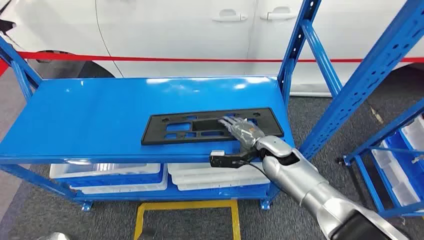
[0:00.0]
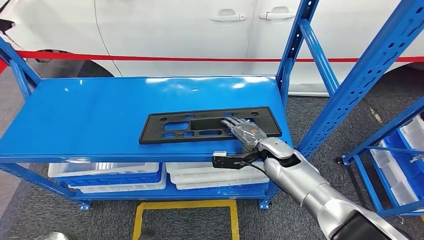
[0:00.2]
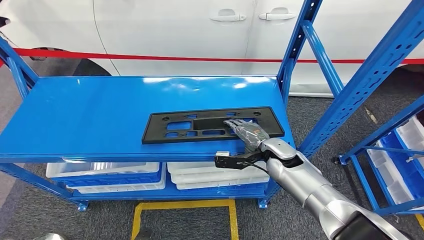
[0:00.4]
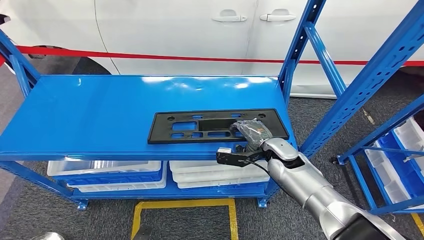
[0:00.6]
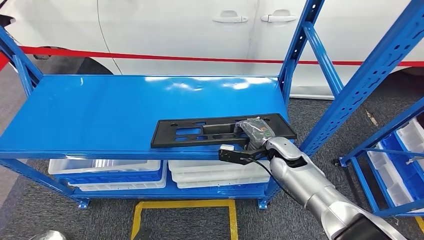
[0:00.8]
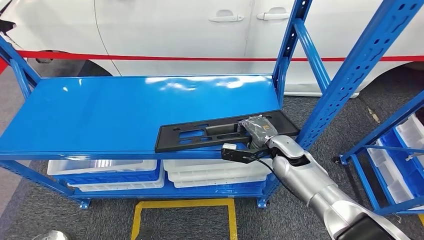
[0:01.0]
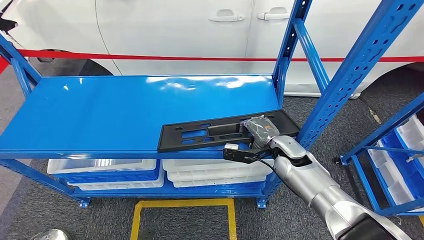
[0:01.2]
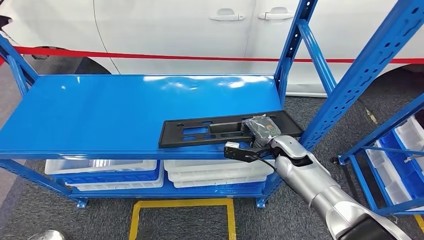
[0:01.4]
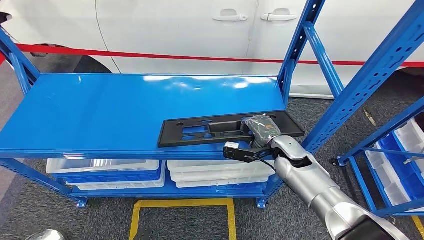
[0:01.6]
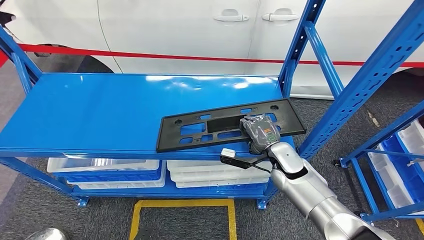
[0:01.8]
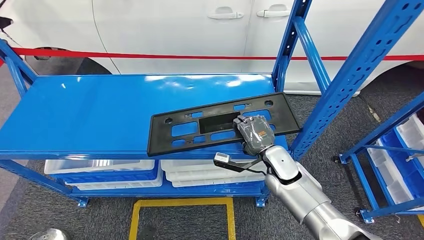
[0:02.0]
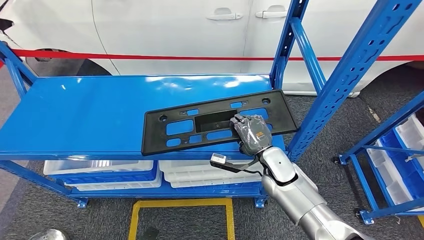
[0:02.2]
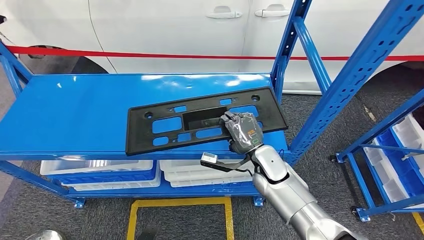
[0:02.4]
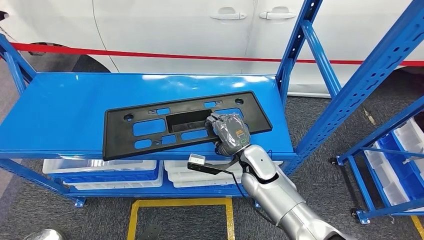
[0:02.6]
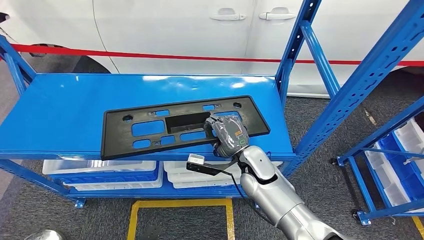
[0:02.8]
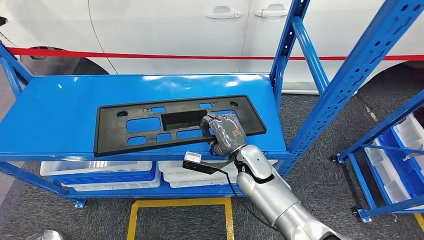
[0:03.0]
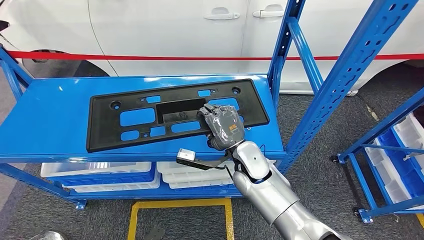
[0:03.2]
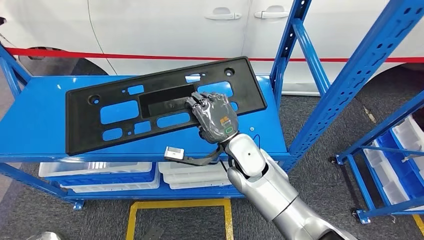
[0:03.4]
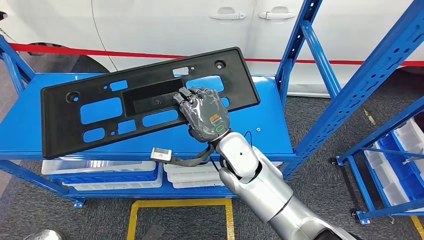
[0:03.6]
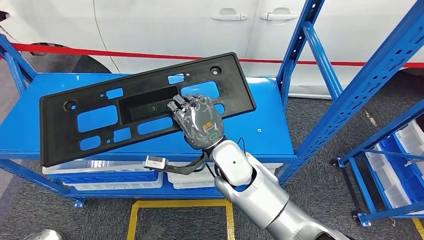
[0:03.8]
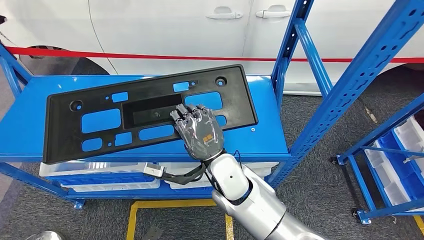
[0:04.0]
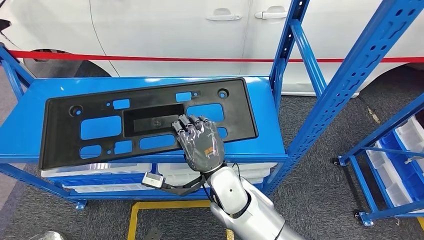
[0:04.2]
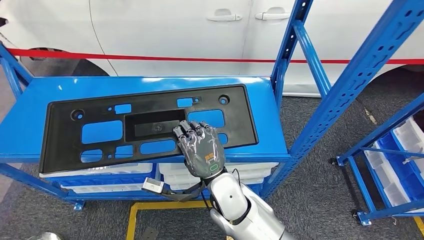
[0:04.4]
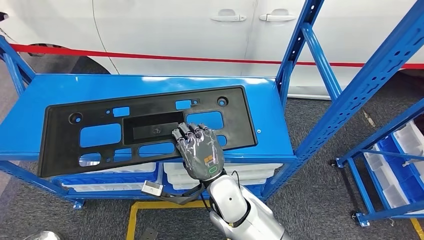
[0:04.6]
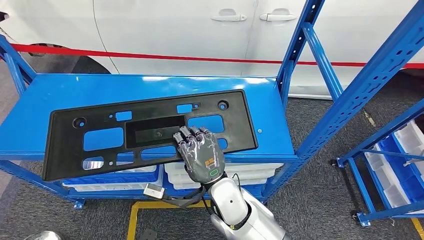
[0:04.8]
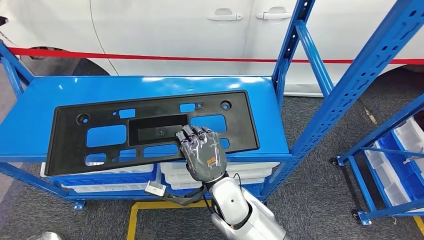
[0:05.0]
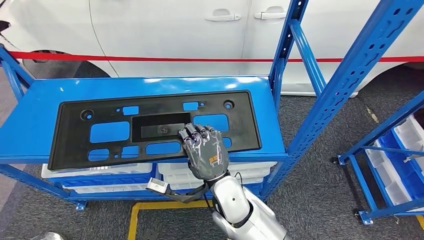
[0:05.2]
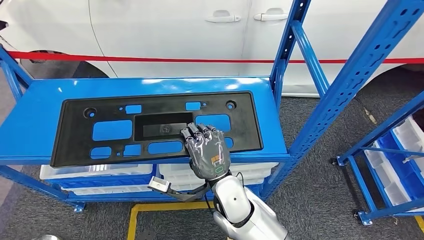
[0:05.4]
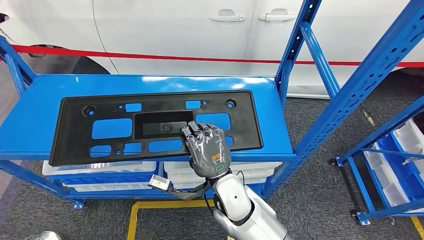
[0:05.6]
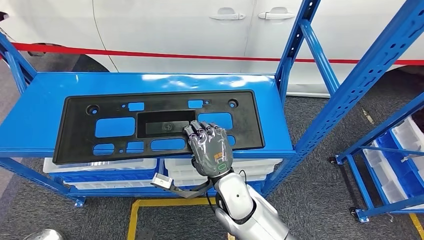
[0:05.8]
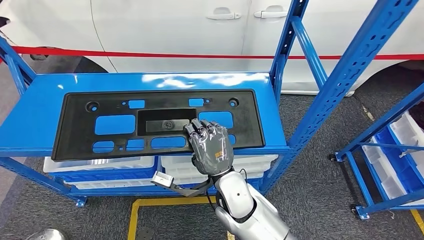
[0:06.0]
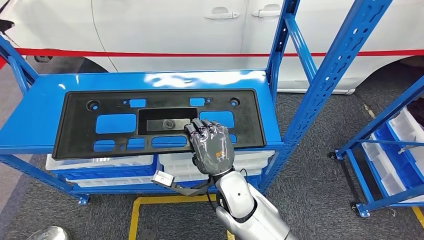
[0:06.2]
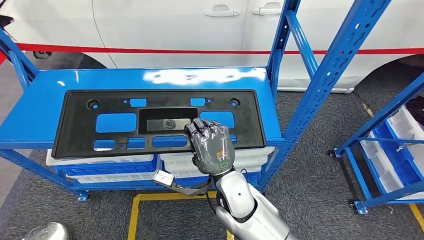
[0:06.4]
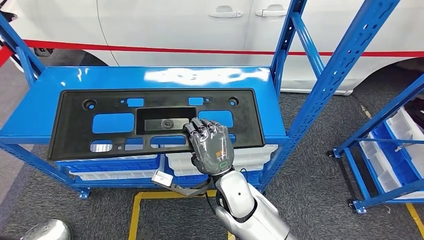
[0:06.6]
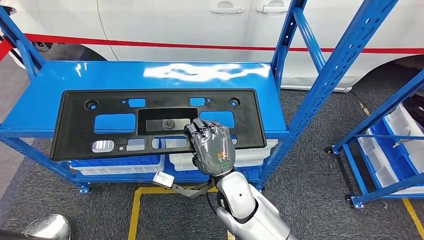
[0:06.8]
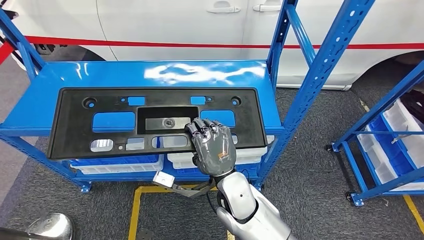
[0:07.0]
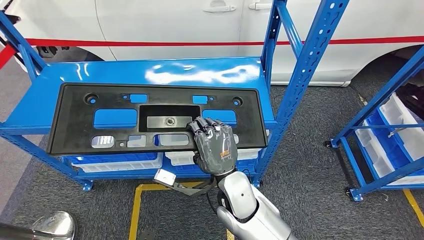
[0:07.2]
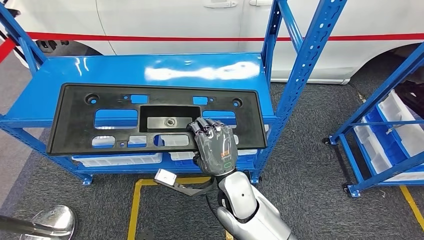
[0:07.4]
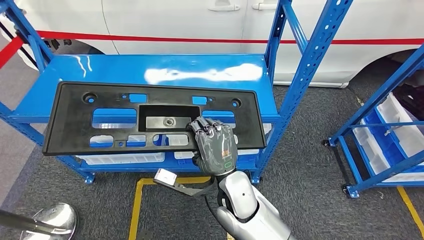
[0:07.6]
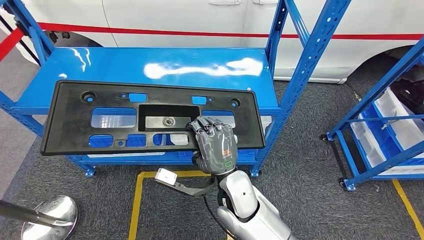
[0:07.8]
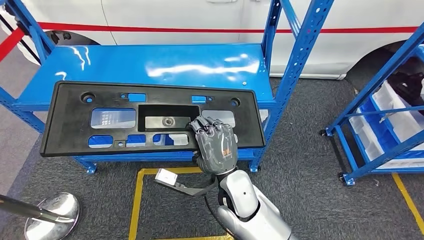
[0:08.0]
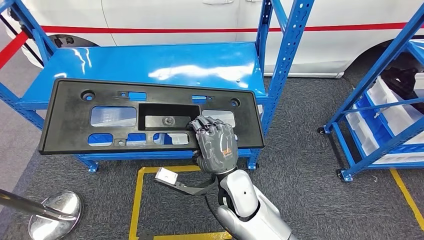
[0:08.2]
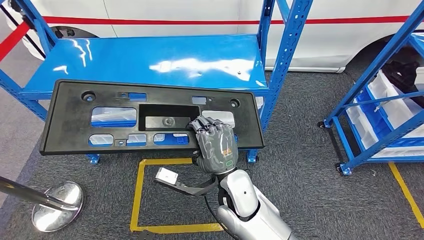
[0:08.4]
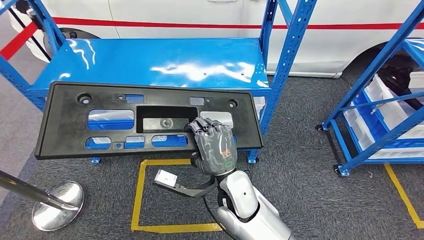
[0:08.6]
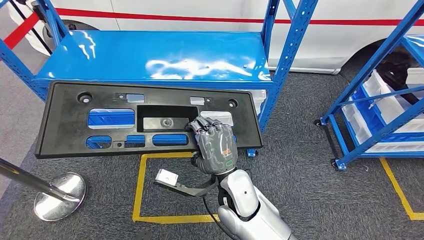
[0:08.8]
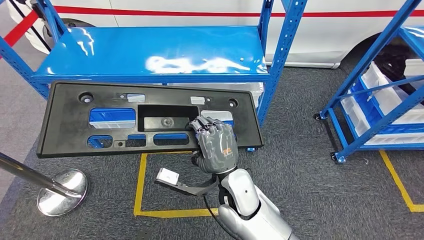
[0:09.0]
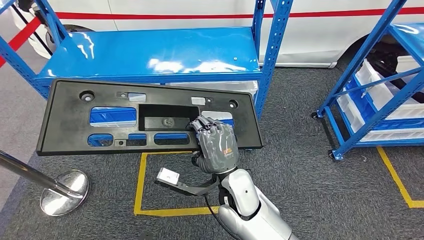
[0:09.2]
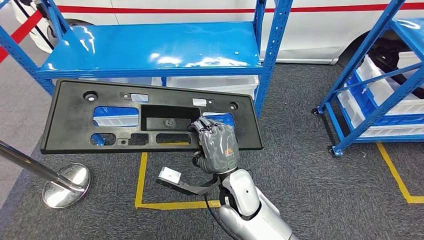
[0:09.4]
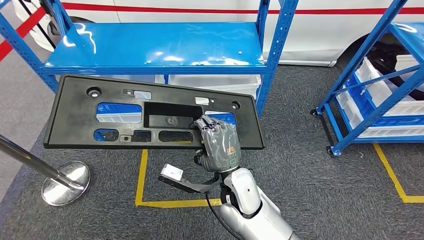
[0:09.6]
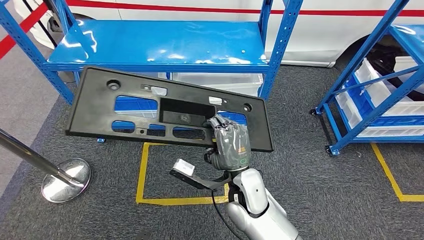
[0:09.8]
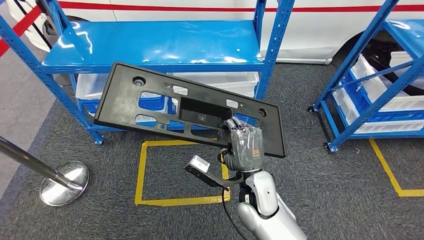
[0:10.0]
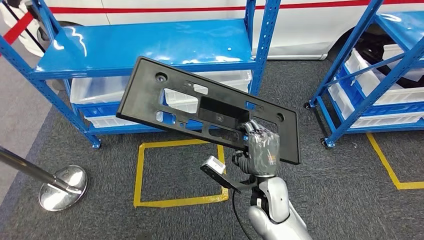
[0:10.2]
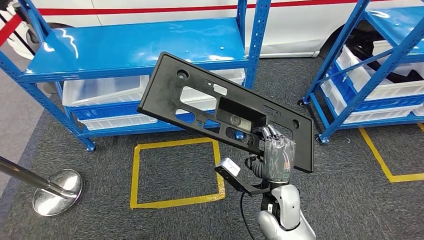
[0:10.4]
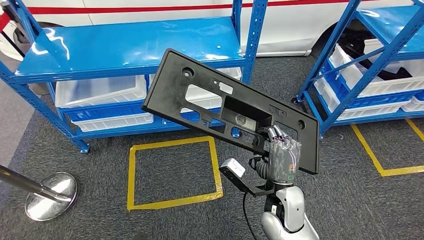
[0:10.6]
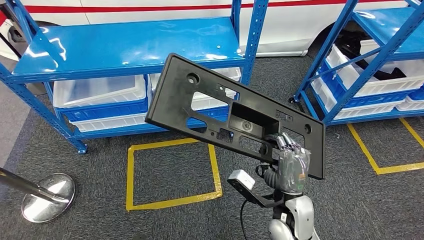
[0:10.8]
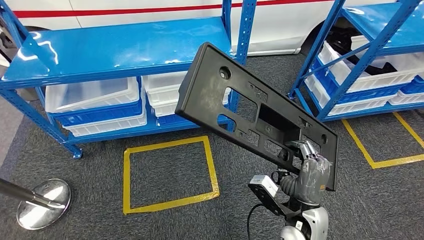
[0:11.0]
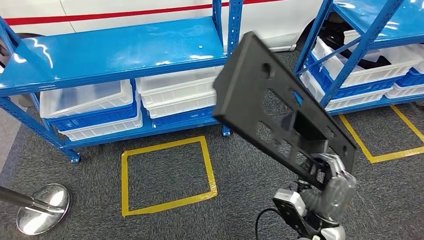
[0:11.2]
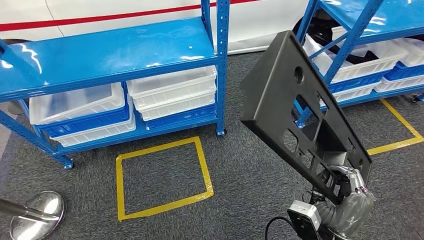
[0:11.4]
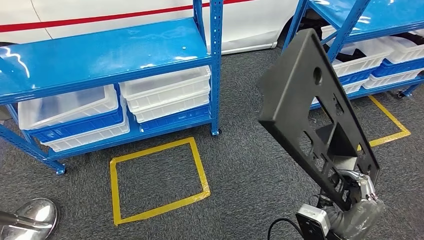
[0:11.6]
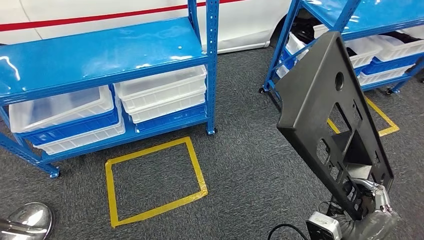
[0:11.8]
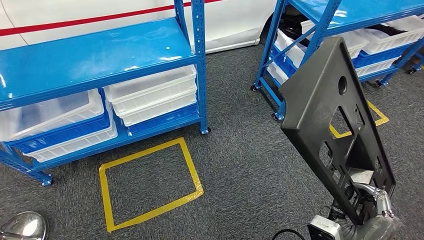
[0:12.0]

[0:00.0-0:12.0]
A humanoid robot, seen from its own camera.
Step, 0:00.0 to 0:05.6: Pick up the large material from the shelf.

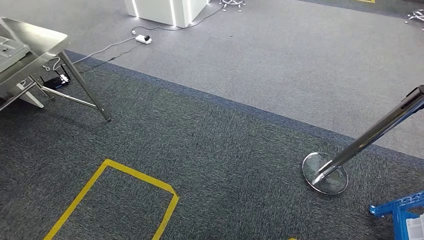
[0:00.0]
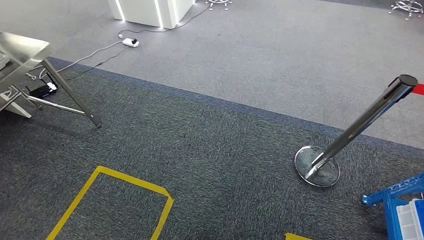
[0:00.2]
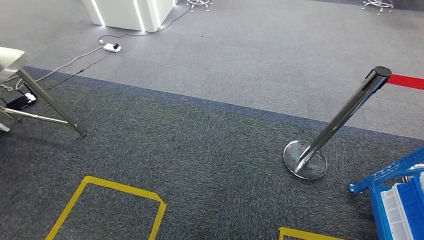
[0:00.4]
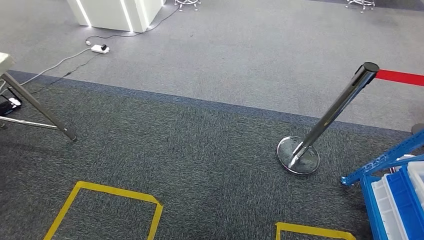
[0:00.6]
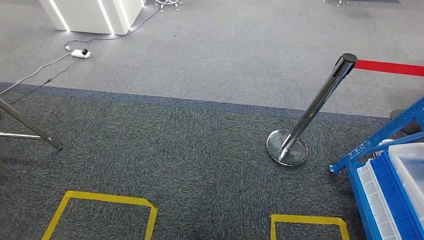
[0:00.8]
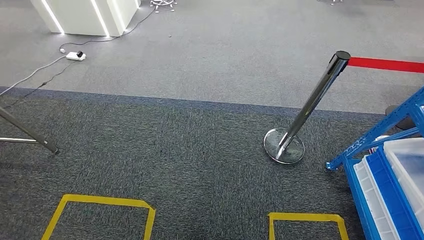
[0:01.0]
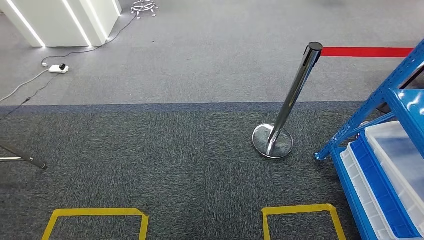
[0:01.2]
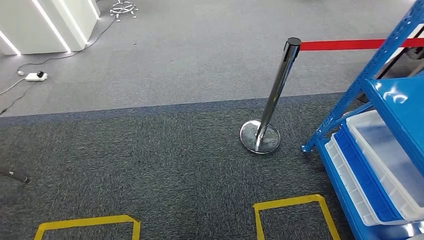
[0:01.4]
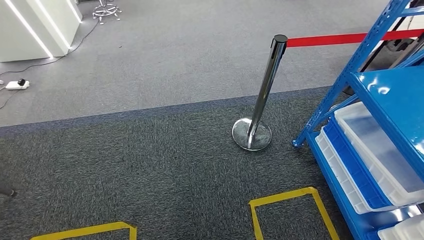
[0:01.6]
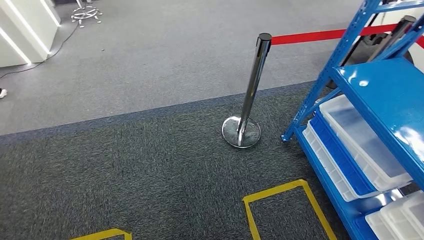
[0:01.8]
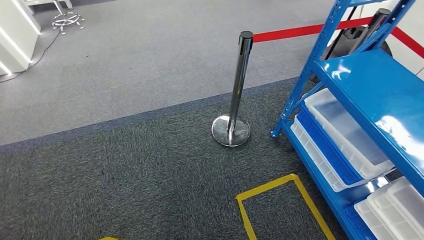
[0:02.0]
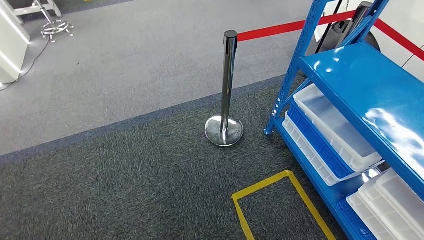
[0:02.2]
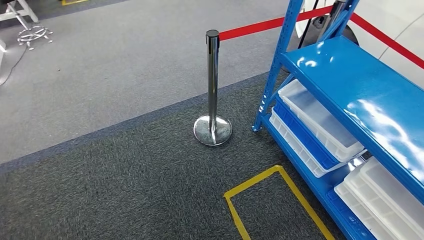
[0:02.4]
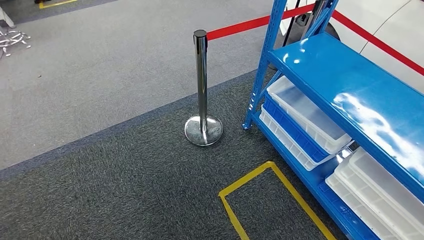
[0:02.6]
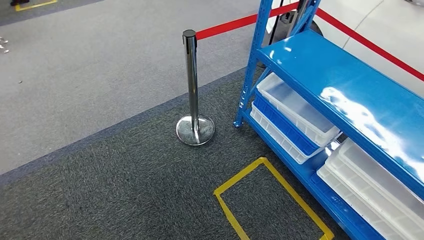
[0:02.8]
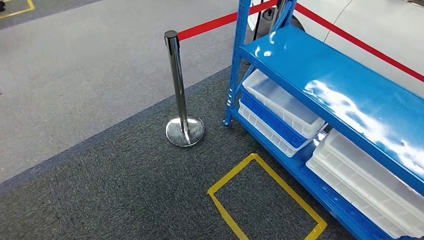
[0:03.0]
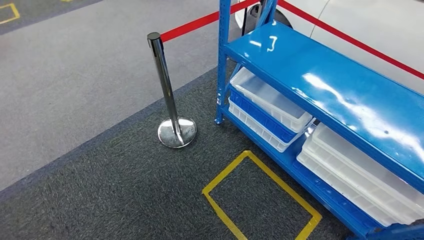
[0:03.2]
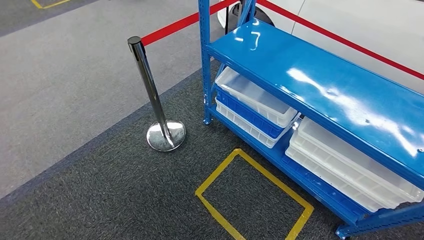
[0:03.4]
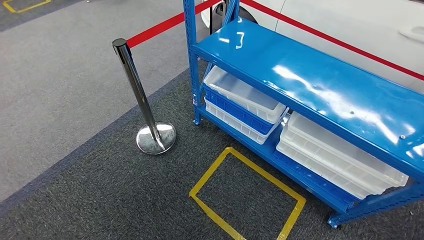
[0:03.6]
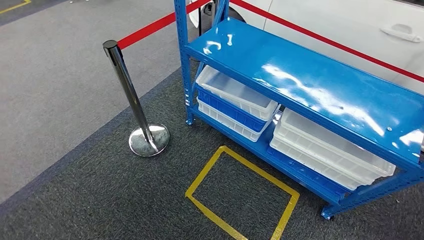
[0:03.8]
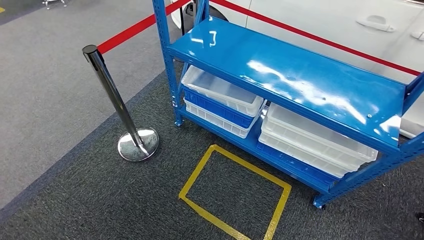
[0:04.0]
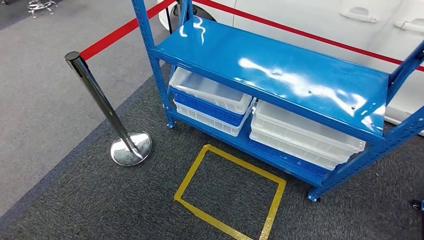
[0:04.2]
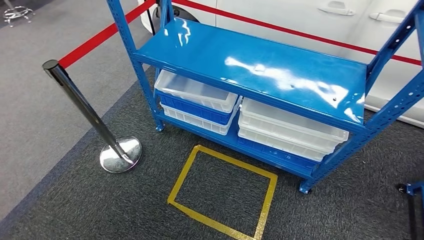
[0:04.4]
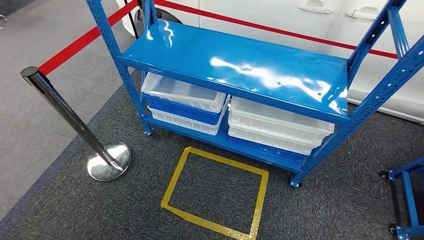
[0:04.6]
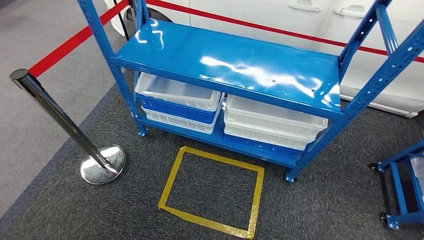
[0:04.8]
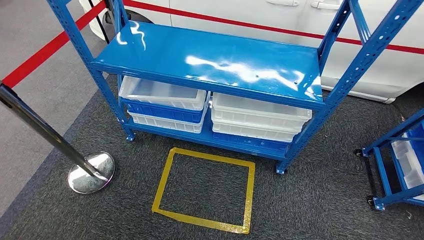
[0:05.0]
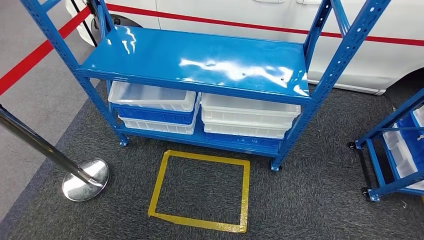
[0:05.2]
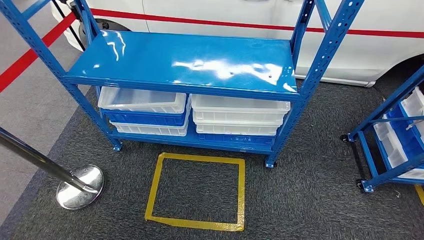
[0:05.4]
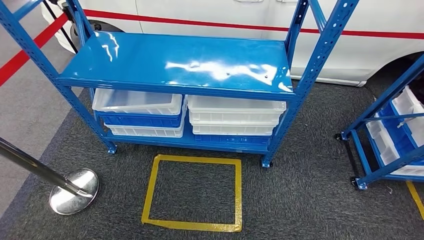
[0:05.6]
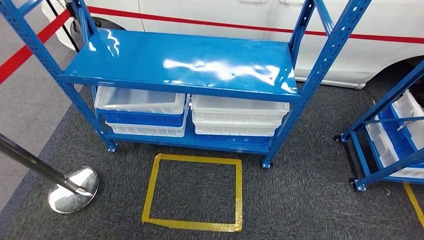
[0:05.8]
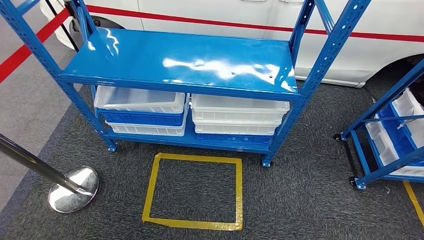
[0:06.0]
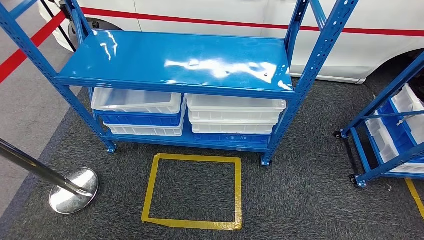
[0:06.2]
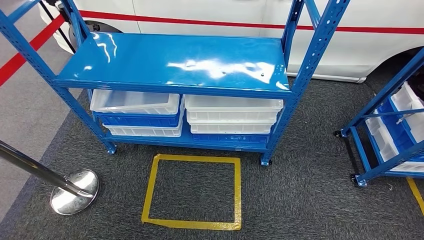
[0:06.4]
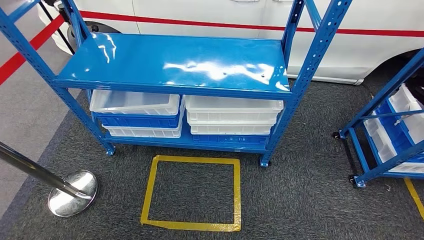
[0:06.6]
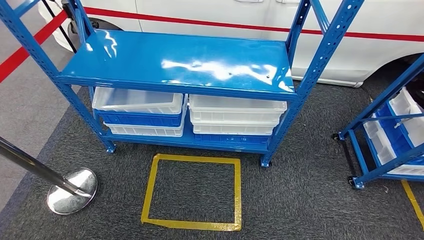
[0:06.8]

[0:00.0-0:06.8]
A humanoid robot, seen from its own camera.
Step, 0:00.0 to 0:06.8: Move to the initial position of the shelf.
